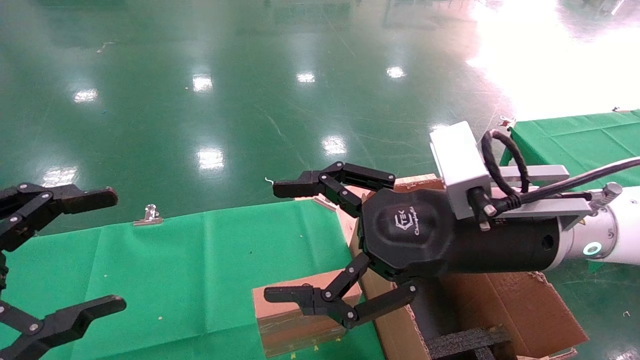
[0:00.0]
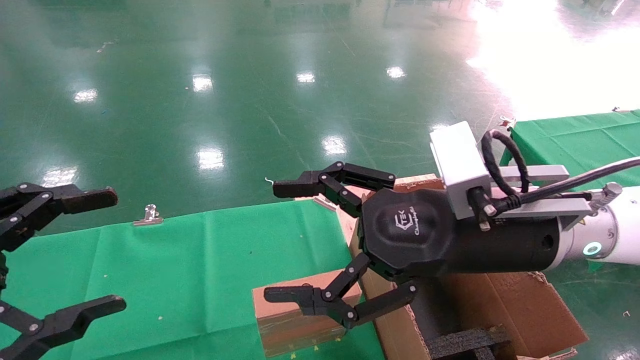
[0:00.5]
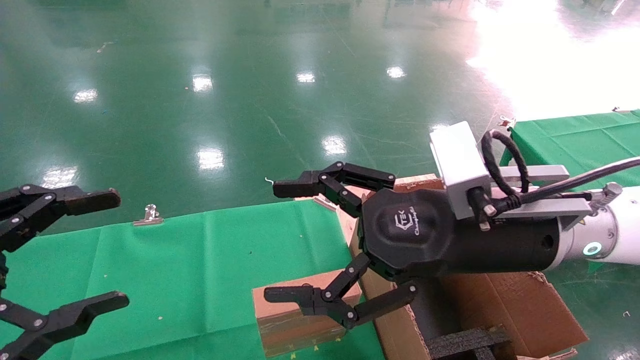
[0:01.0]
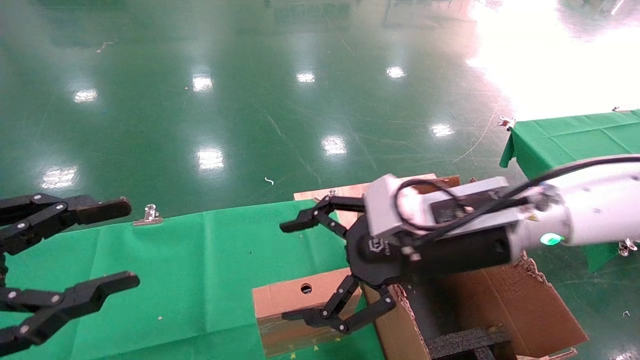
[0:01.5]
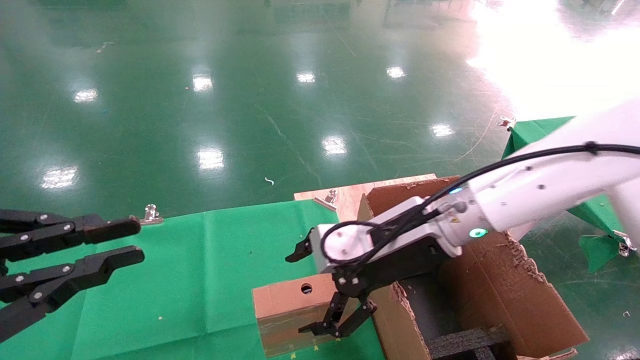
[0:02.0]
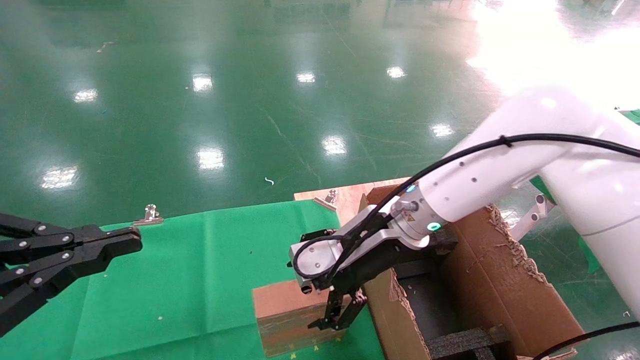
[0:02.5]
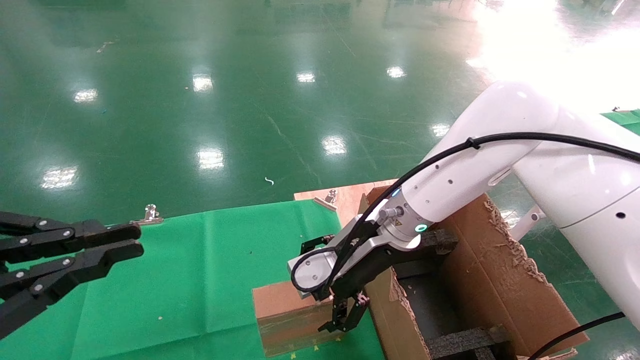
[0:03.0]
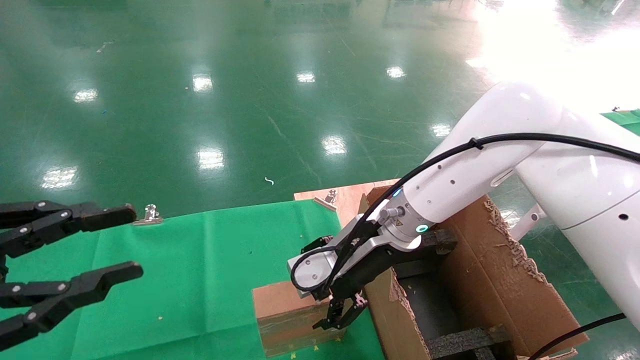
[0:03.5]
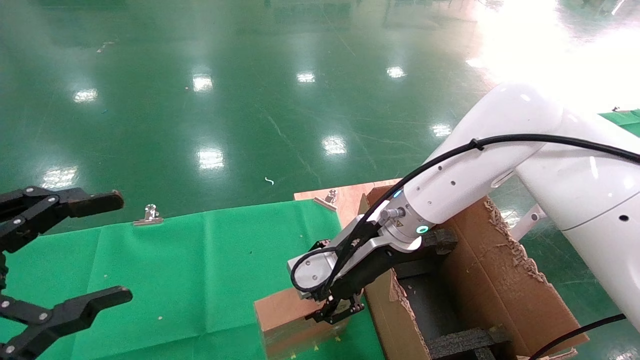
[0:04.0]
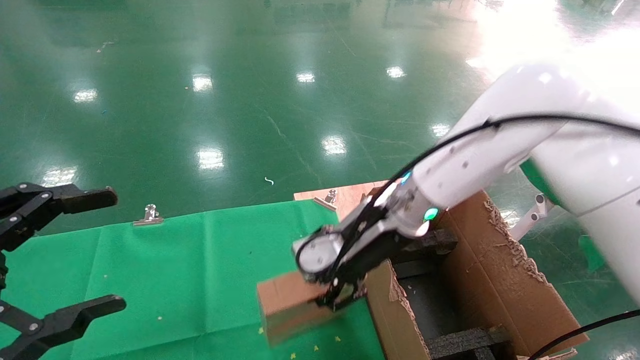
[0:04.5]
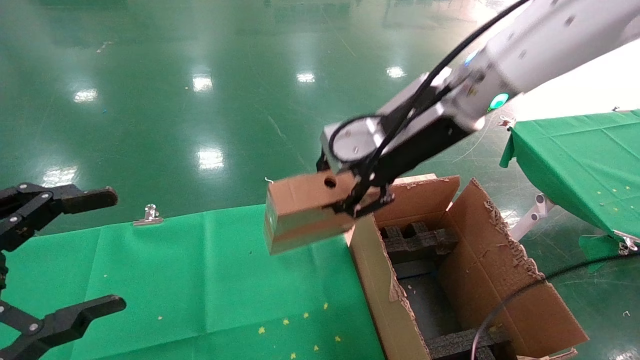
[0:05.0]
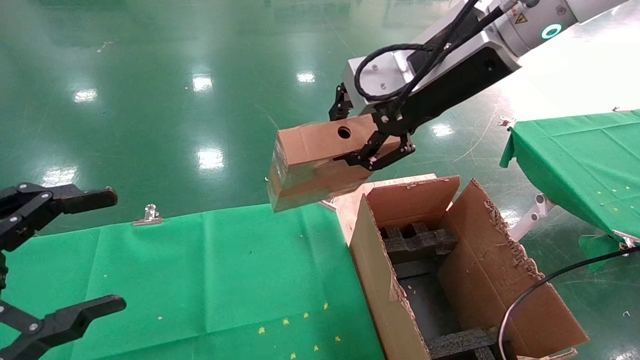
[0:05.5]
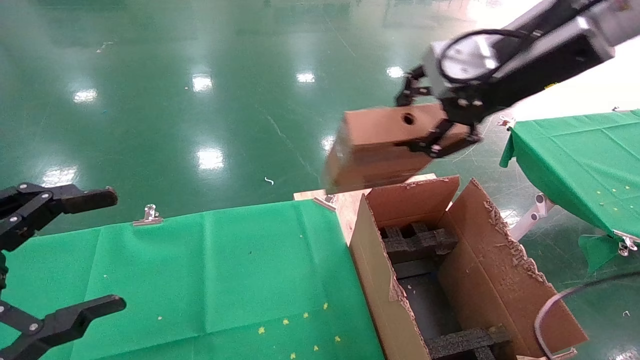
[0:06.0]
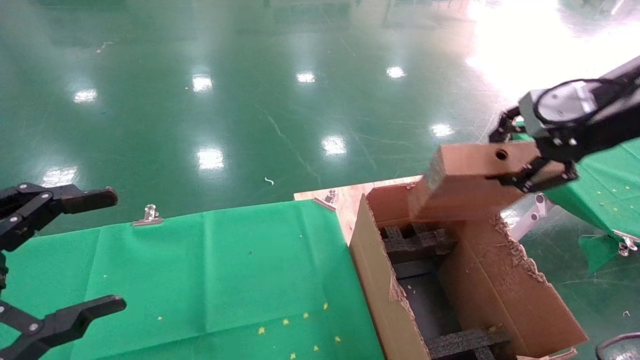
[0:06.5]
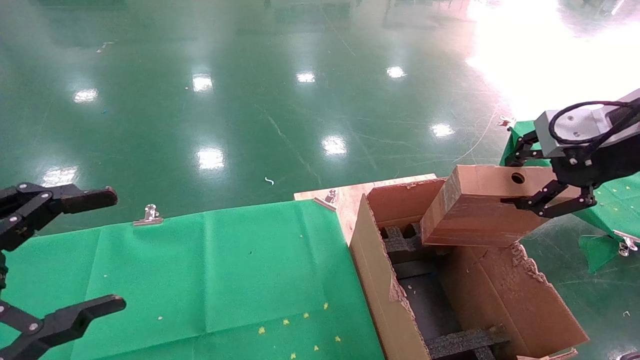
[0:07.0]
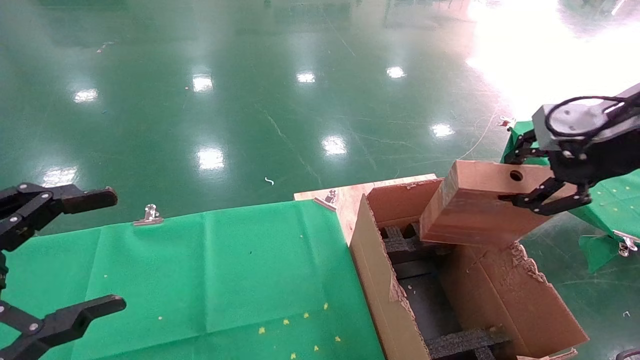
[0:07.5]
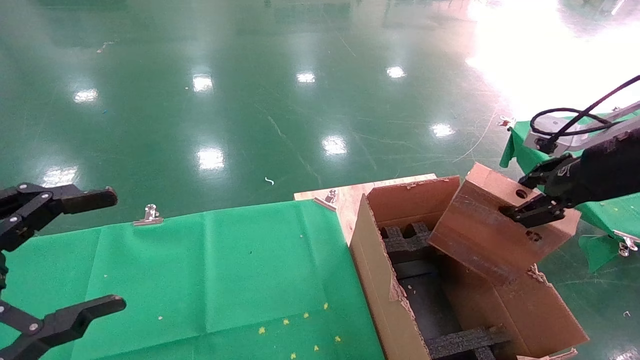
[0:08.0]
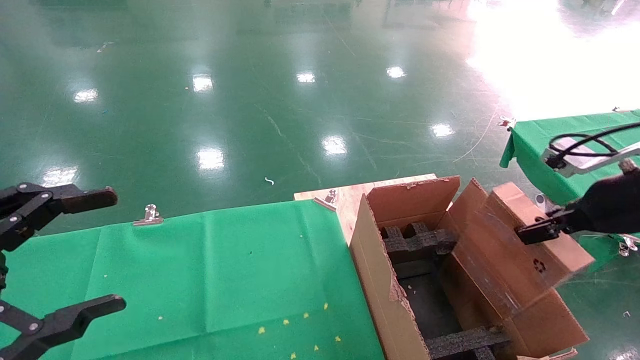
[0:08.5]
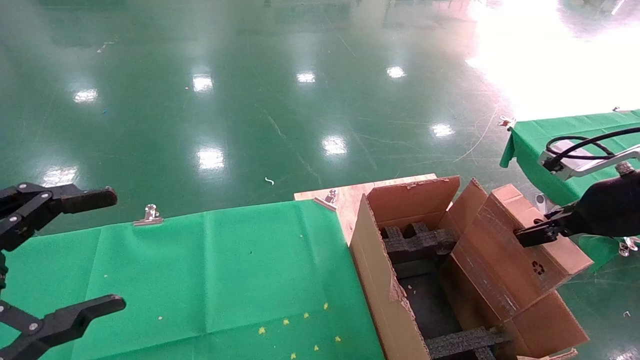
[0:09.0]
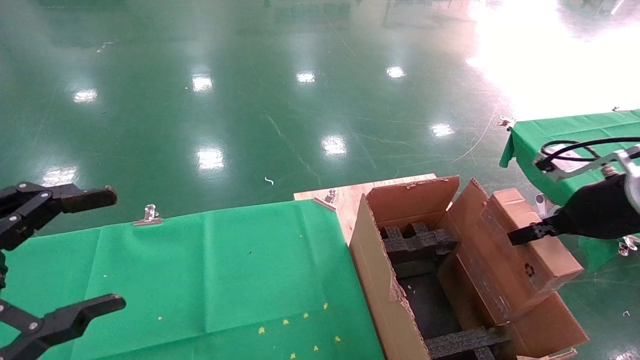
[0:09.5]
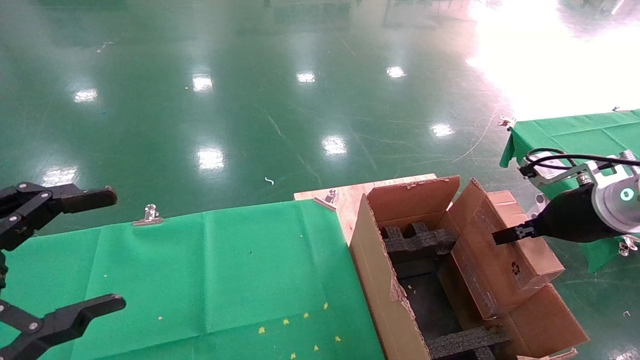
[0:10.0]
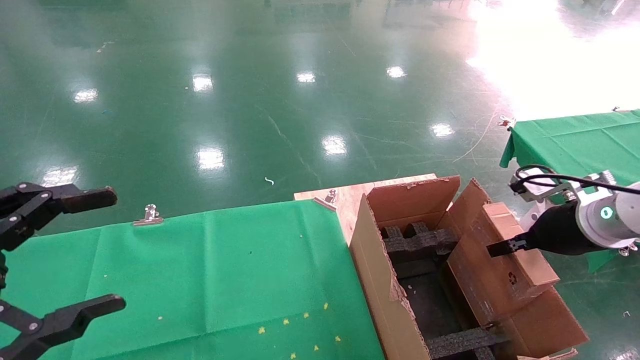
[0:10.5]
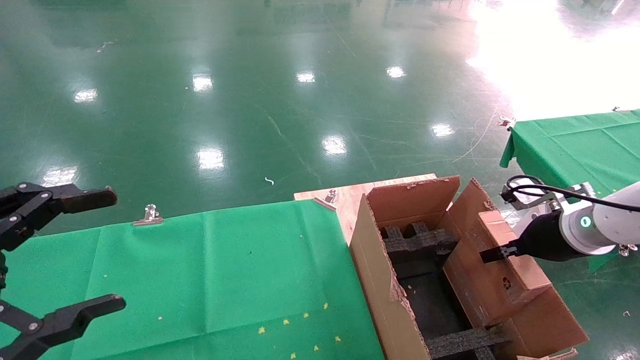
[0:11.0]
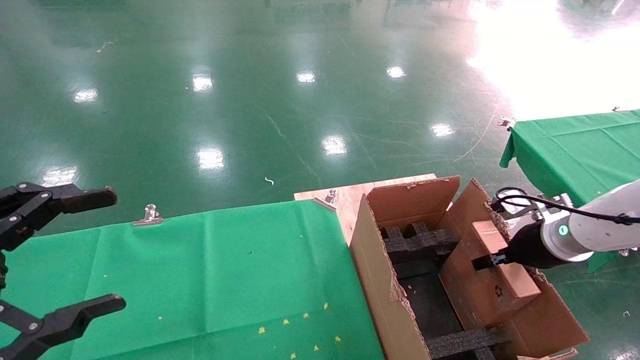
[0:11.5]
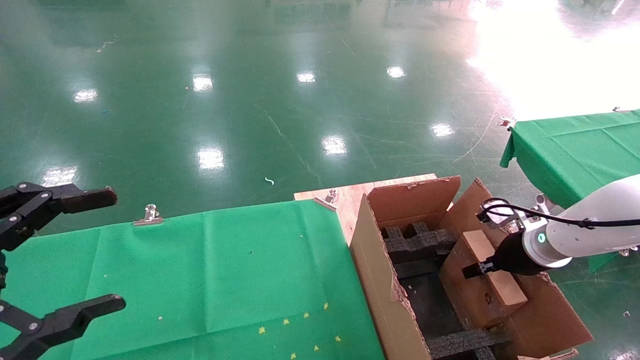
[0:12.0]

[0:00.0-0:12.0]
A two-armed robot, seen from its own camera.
Task of the whole recording: using a robotic arm to pick up a cardboard box and palace it the carton.
Step, 0:01.5 to 0:04.0: Pick up the mouse and the power cord paper box.
0:00.0 to 0:02.0: The left gripper closes up. The right gripper shifts approximately 10 cm forward.
0:02.0 to 0:04.0: The left gripper opens. Meanwhile the right gripper ends up some 5 cm from where it was, and closes its fingers.
0:04.0 to 0:06.0: The right gripper travels upward and to the right by roughly 25 cm.
0:06.0 to 0:08.0: The right gripper shifts approximately 20 cm to the right and downward.
0:08.0 to 0:10.0: The right gripper heads downward, covering about 10 cm.
0:10.0 to 0:12.0: The right gripper moves downward and forward, some 15 cm.

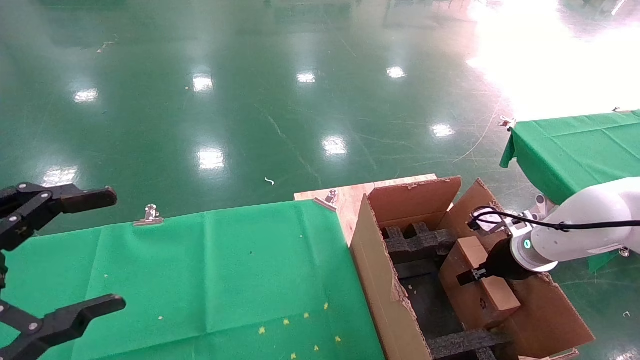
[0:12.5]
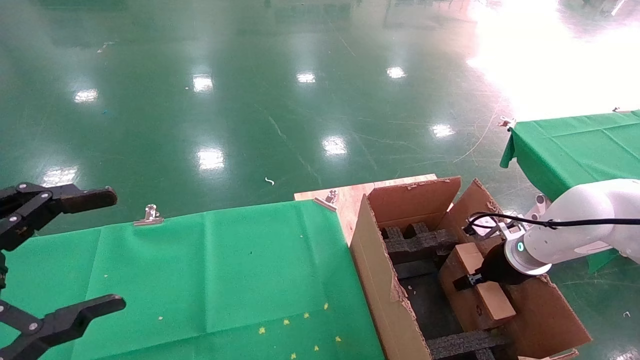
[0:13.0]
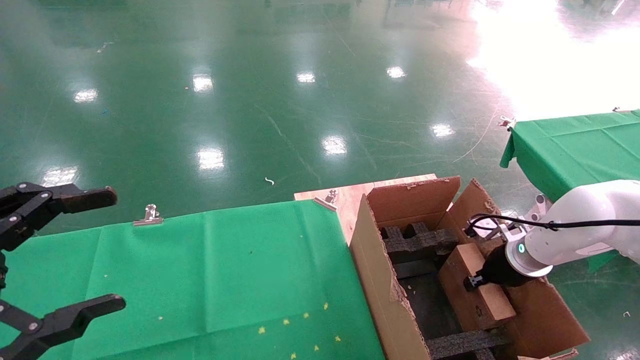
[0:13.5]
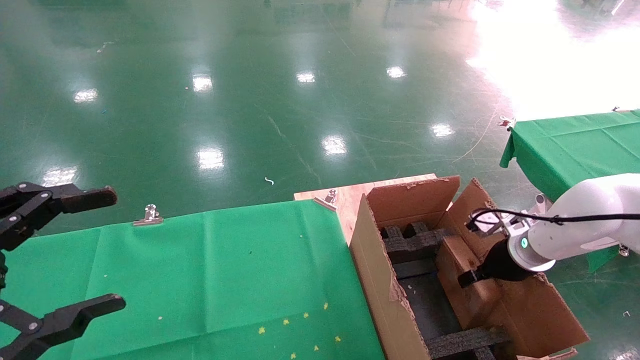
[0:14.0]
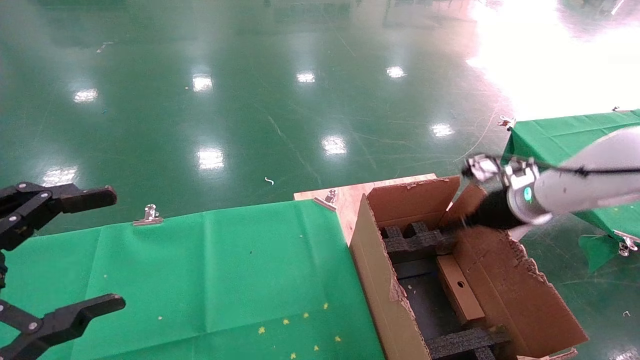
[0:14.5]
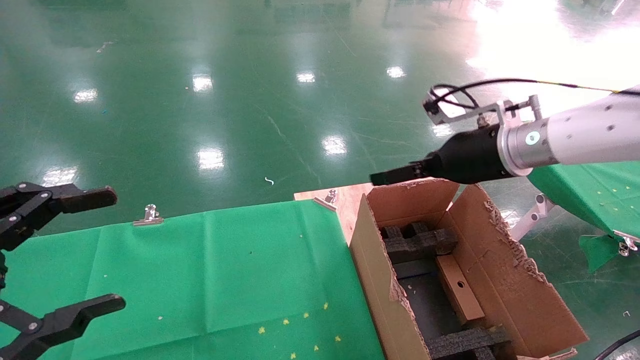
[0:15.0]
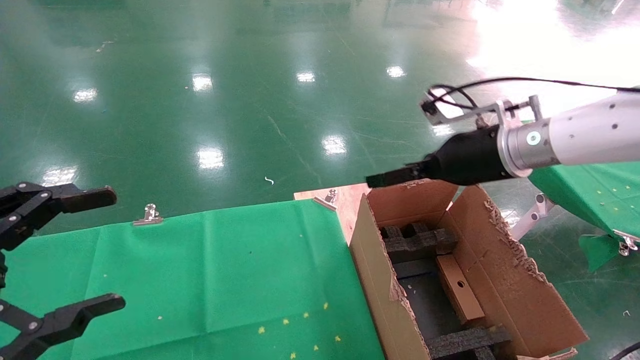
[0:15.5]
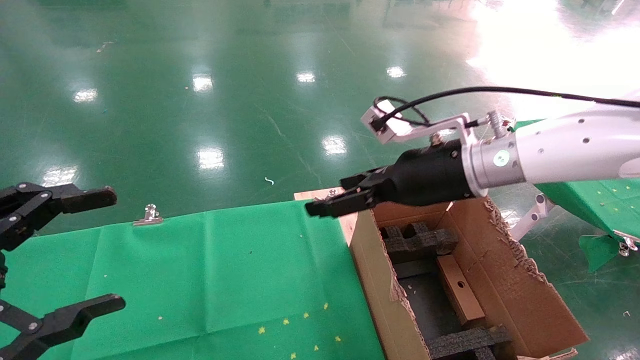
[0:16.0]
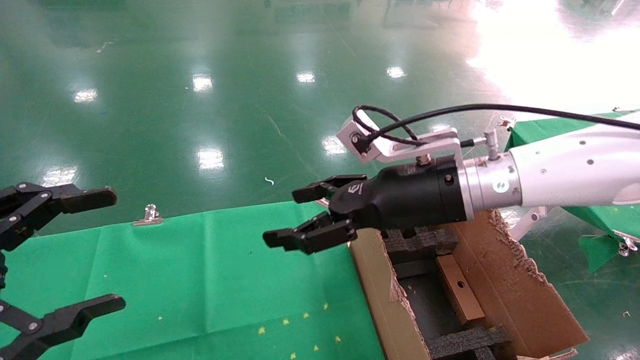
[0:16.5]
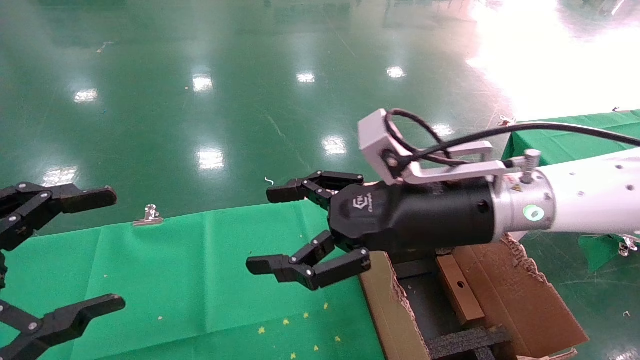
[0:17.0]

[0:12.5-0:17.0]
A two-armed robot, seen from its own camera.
Task of the whole recording: using a robotic arm to pick up a cardboard box and palace it the carton.
0:12.5 to 0:14.5: The right gripper shifts some 10 cm upward, and opens up.
0:14.5 to 0:17.0: The right gripper moves to the left and backward, about 25 cm.
